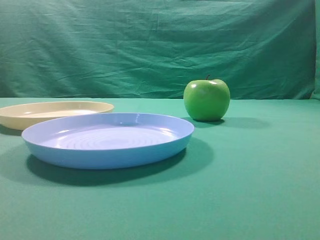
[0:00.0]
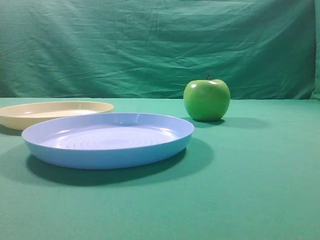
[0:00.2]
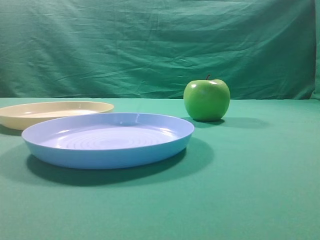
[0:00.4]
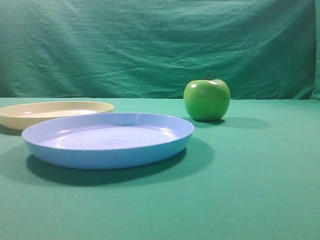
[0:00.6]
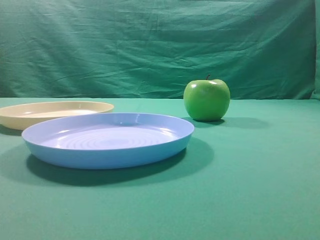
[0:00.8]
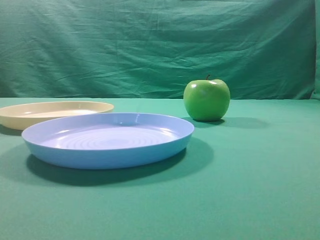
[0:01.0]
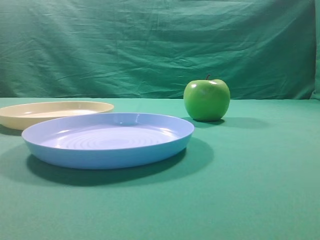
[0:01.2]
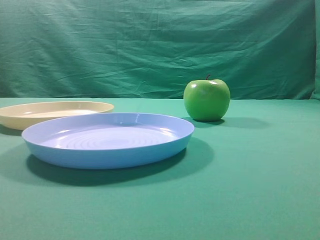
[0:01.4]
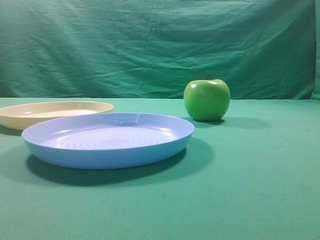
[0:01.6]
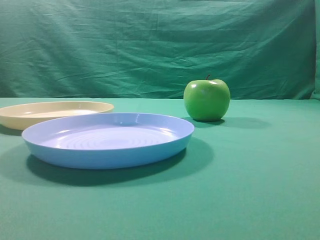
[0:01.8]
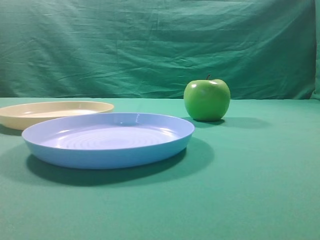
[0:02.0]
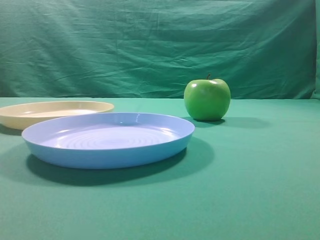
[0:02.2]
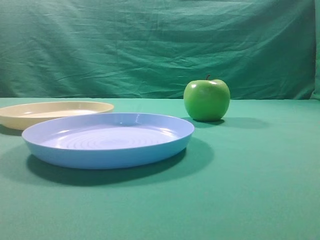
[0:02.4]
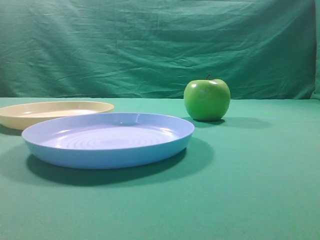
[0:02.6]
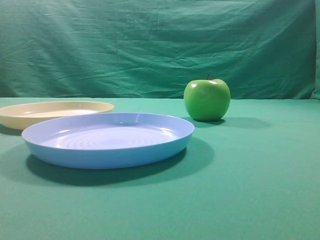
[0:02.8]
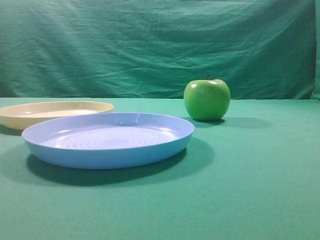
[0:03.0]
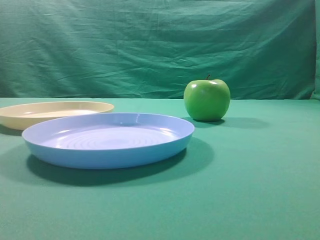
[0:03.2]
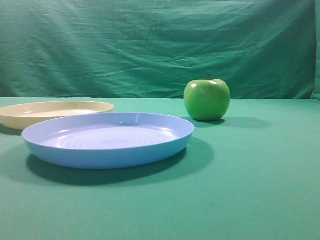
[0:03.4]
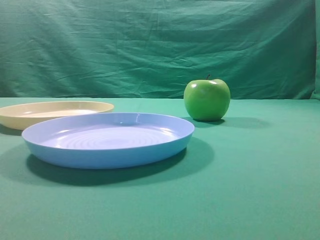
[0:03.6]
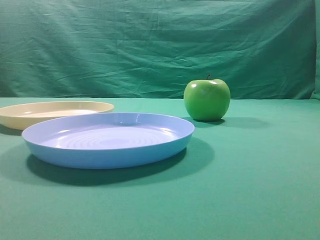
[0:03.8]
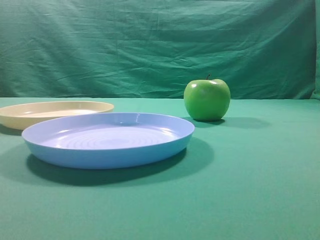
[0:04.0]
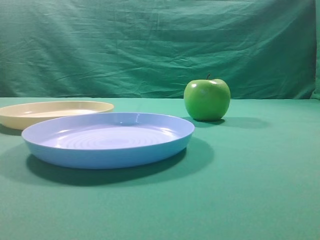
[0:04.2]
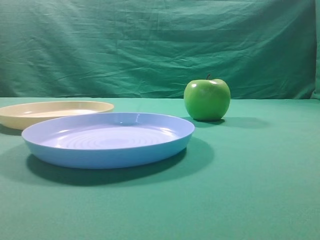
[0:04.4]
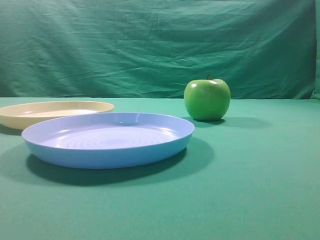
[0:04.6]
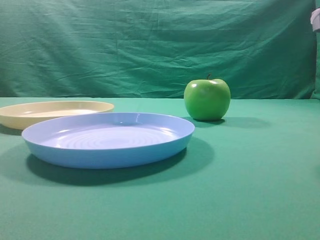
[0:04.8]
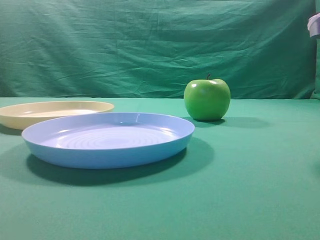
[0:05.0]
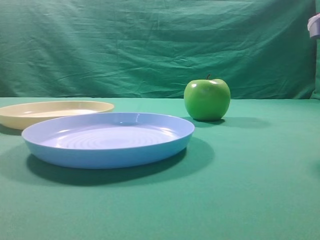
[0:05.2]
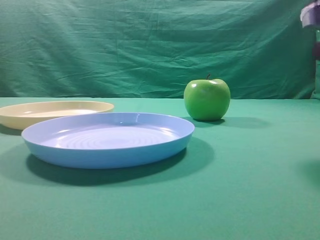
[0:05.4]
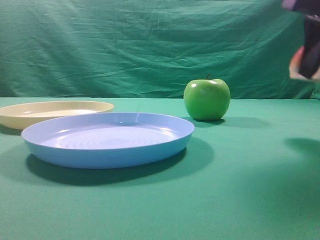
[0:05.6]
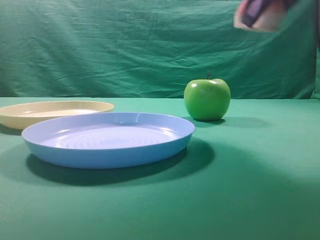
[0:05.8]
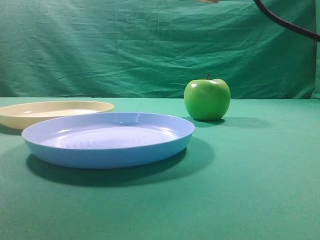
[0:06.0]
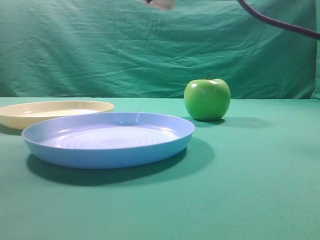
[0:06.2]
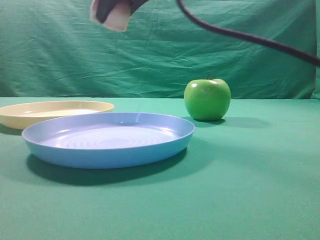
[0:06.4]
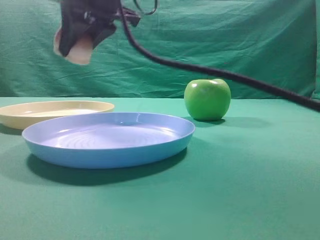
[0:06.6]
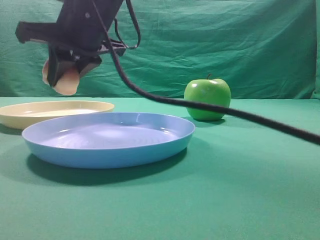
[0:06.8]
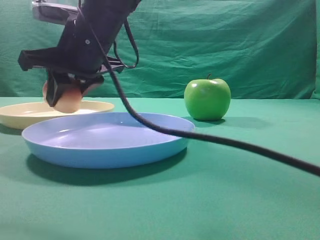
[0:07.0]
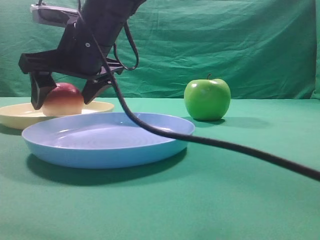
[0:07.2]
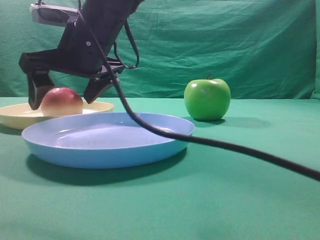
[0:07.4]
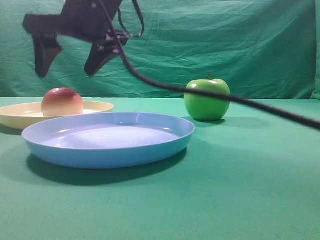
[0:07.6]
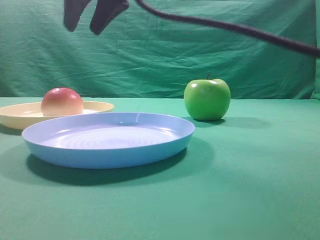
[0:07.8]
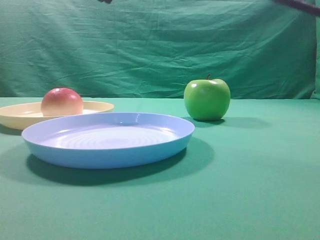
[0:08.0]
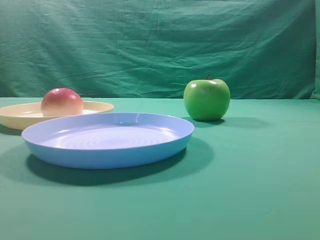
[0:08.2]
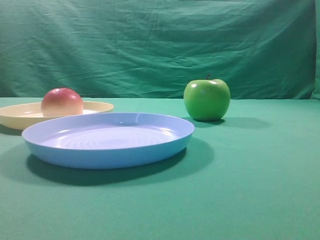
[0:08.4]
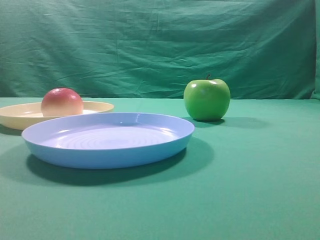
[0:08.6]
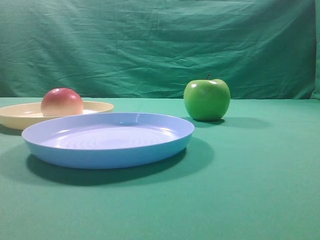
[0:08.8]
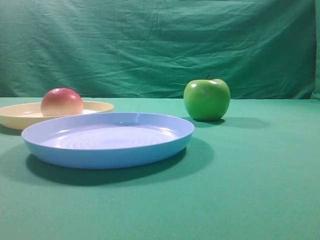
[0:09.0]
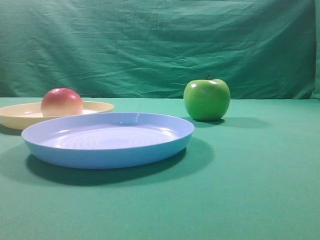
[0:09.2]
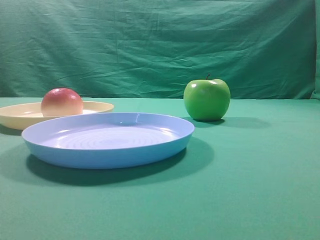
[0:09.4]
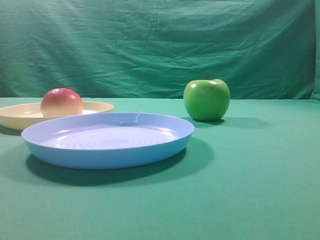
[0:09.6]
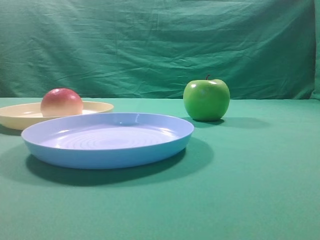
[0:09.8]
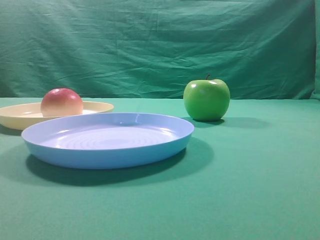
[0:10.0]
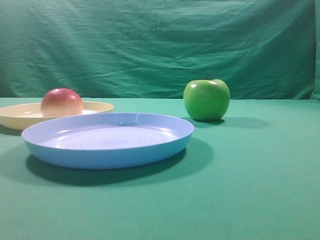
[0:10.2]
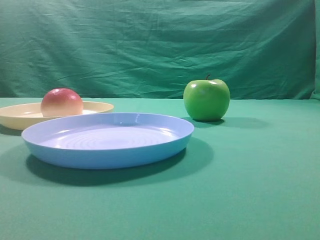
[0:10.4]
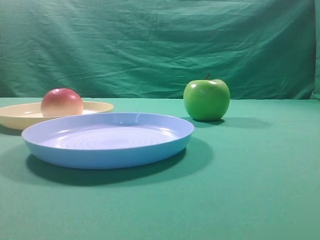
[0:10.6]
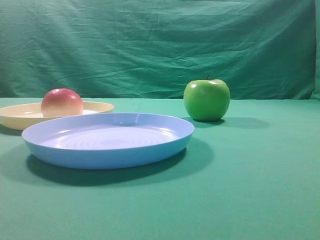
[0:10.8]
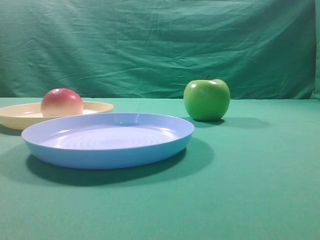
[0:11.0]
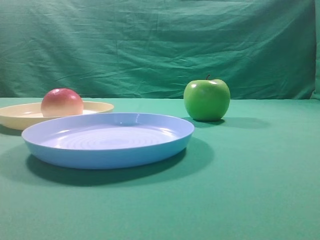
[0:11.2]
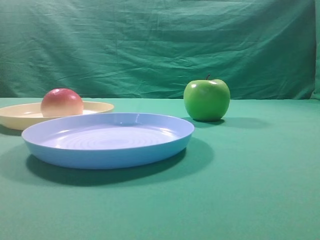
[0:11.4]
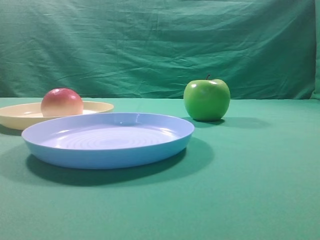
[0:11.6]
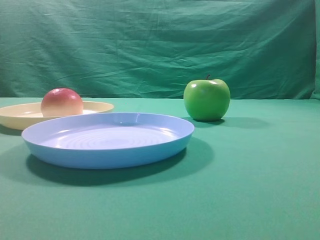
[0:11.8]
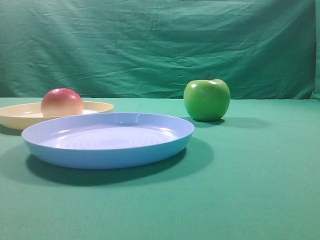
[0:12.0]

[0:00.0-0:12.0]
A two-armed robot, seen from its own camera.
Step, 0:05.6 to 0:07.6: Place the picked object on the yellow plate.

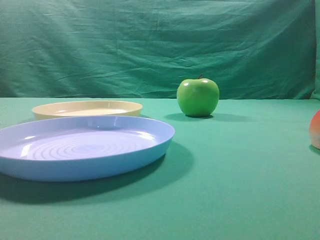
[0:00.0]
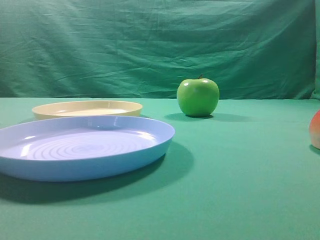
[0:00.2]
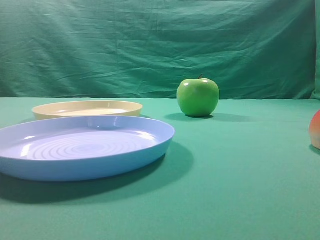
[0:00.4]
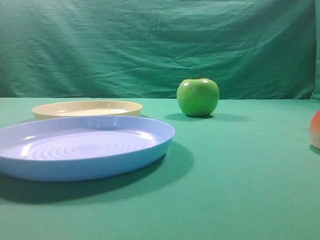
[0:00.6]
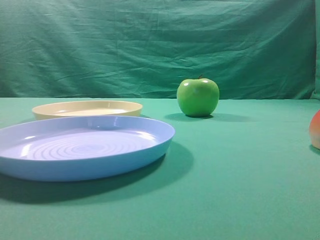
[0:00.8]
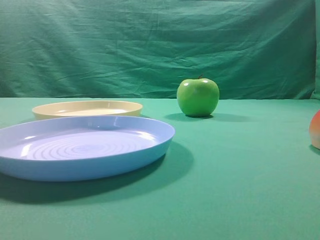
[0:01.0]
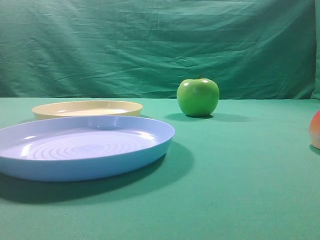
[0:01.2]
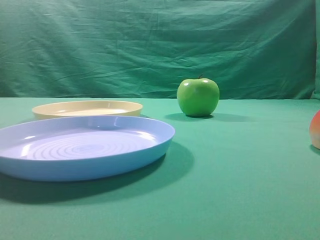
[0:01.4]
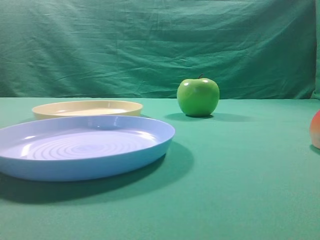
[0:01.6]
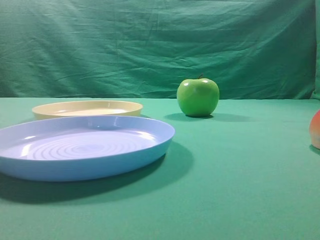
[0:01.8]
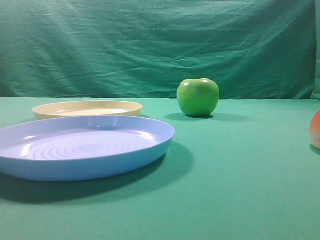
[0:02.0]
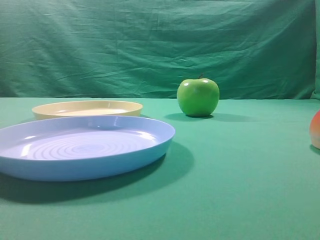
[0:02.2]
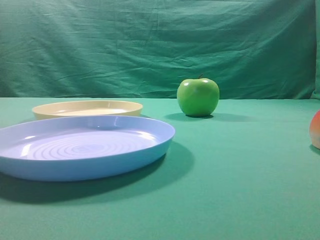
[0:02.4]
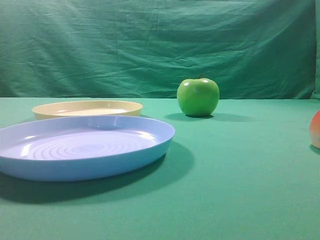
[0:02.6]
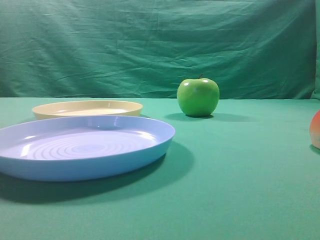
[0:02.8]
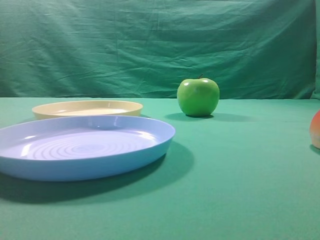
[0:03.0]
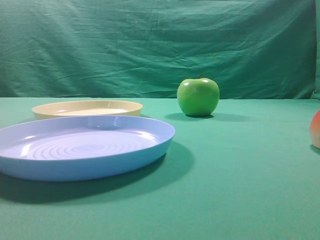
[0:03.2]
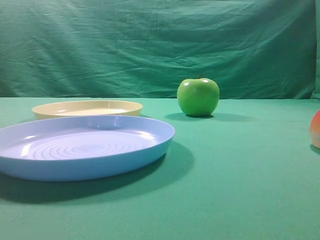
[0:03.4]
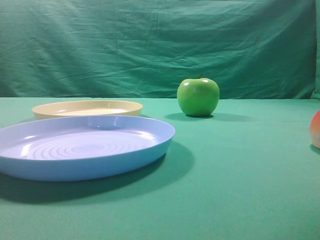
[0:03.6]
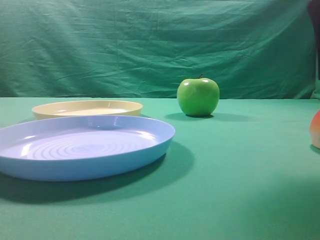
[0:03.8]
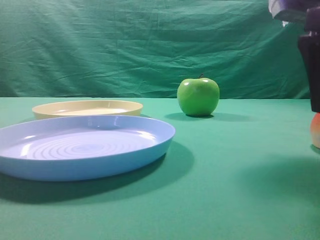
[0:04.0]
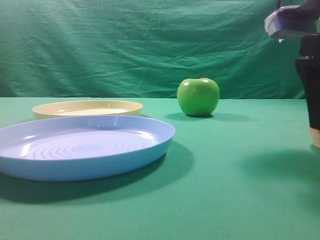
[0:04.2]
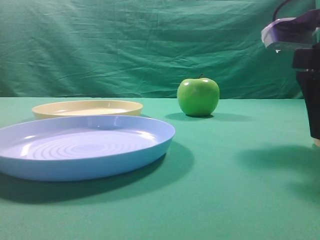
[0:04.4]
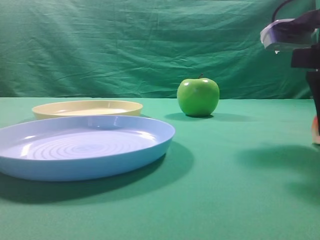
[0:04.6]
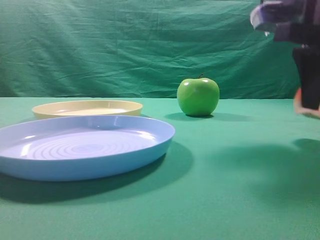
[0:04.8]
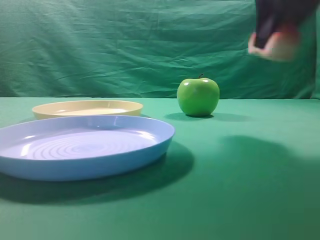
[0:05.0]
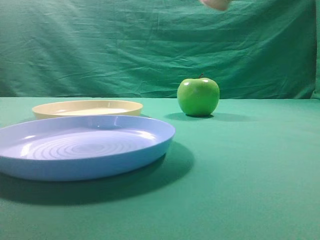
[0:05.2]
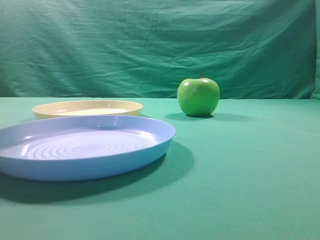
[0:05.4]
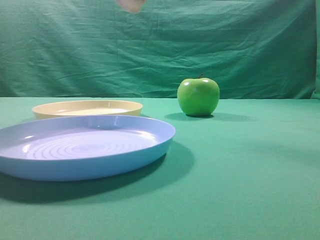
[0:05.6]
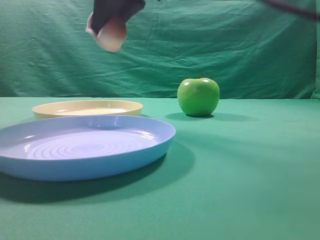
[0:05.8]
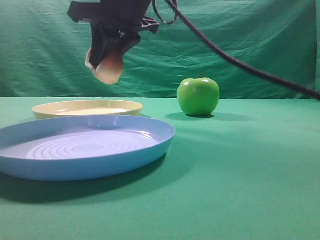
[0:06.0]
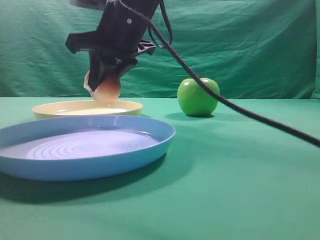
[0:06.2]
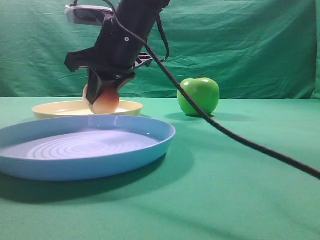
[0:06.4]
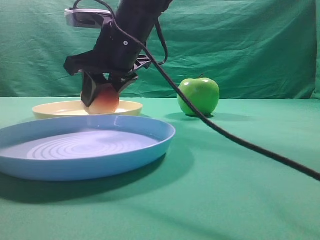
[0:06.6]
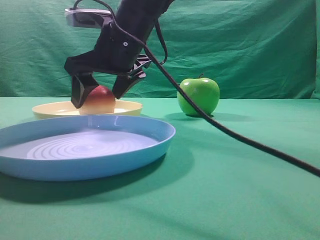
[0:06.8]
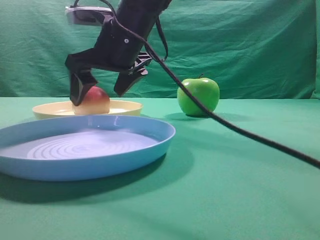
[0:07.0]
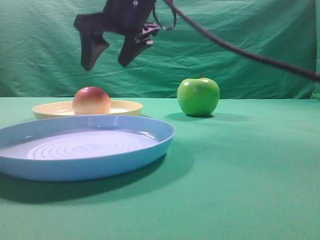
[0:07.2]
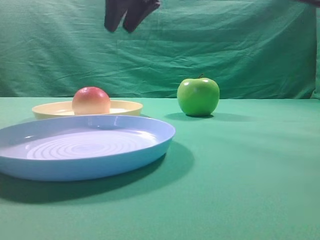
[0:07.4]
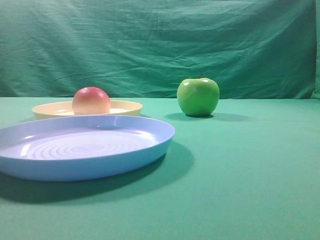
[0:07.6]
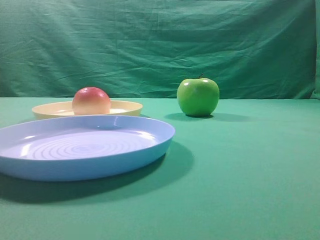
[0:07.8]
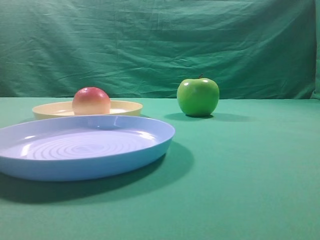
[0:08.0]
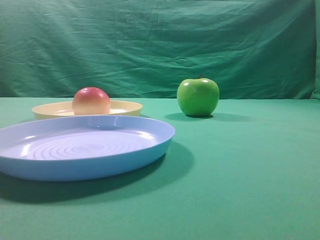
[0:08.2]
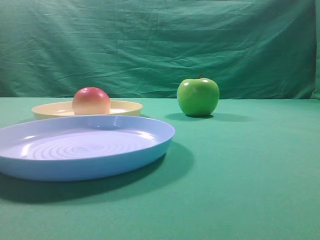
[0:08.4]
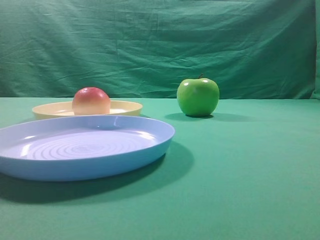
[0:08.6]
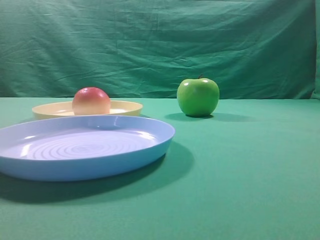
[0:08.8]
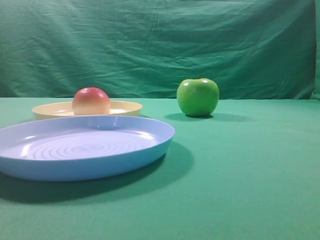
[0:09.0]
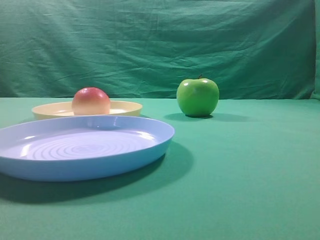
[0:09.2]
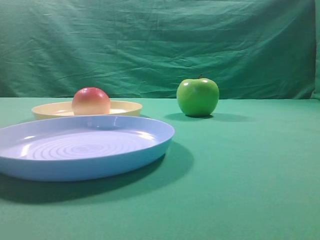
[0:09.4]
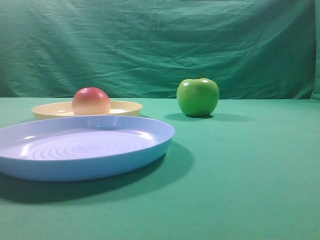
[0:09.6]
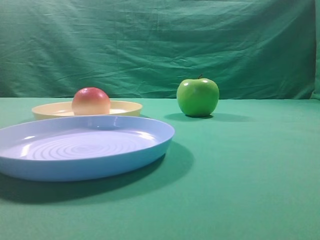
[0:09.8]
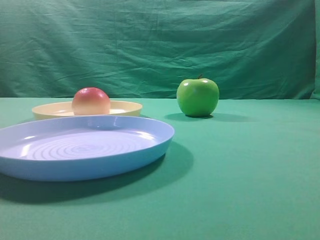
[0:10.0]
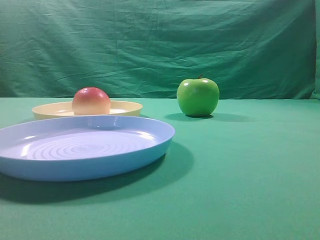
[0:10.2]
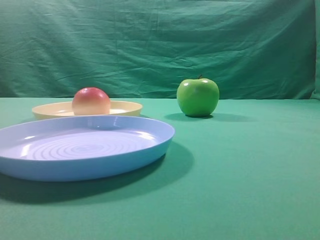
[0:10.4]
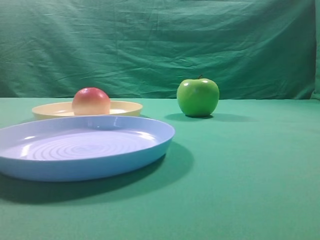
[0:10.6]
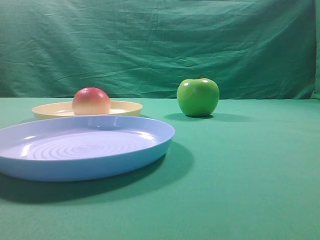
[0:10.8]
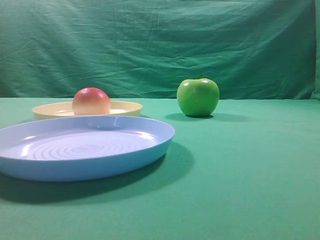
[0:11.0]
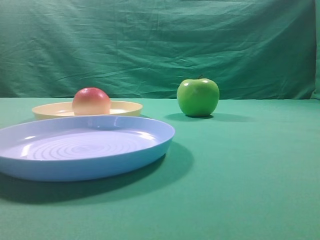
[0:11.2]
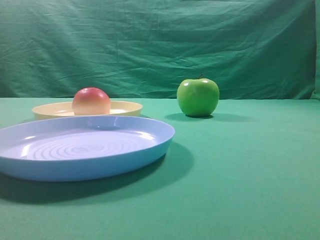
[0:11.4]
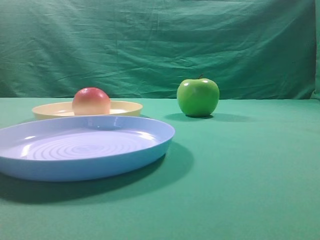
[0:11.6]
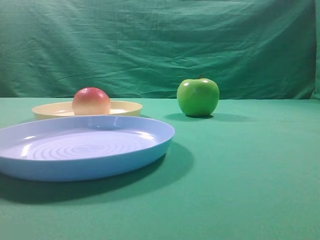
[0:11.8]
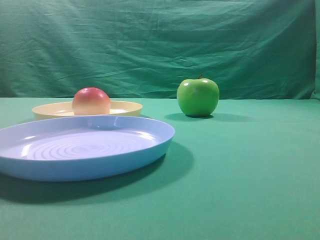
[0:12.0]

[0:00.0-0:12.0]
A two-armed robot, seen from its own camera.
Step, 0:05.0 to 0:07.2: Place the picked object on the yellow plate.
